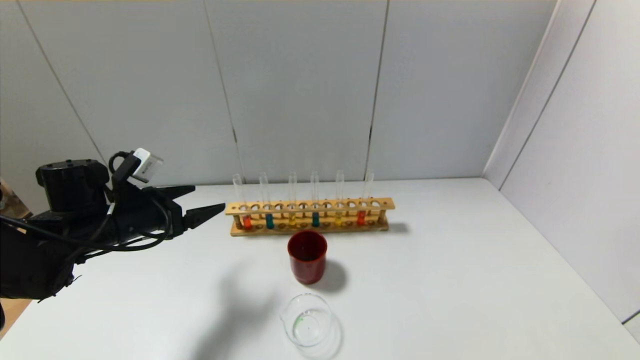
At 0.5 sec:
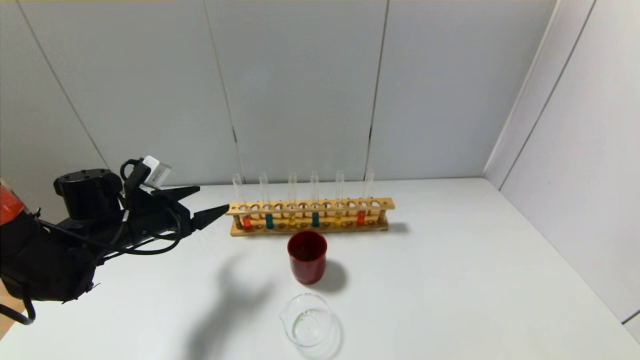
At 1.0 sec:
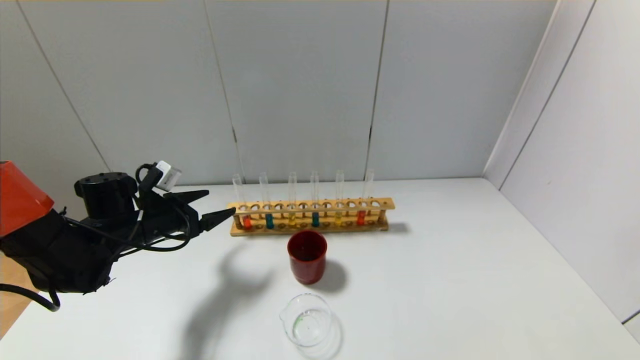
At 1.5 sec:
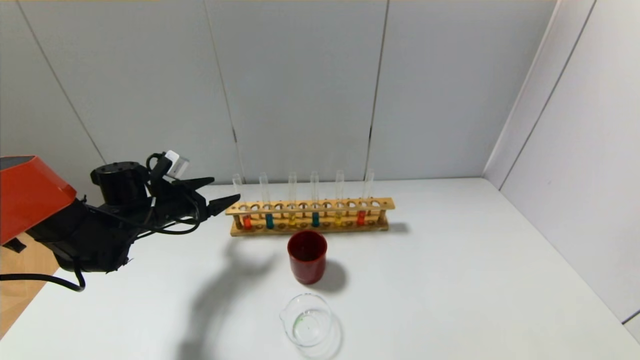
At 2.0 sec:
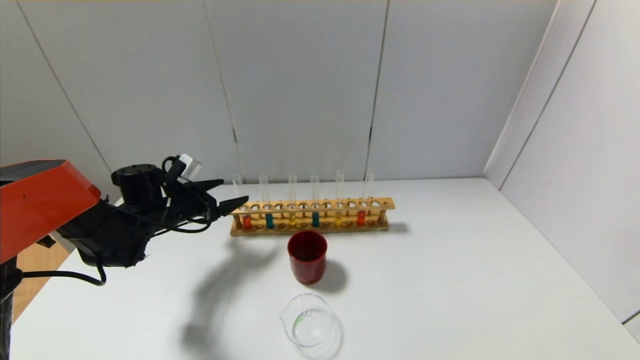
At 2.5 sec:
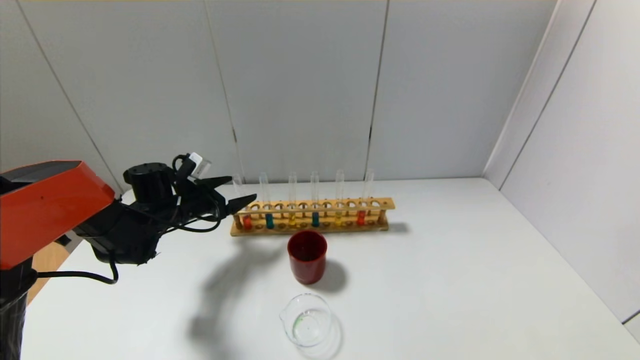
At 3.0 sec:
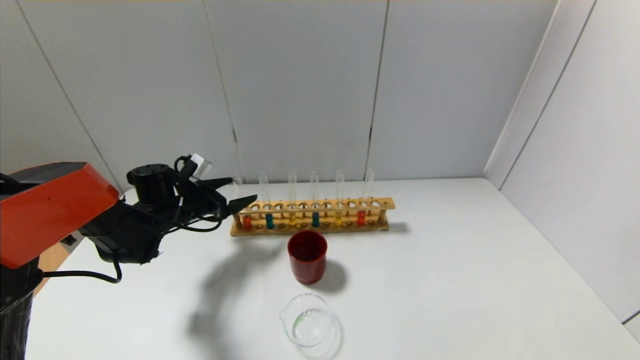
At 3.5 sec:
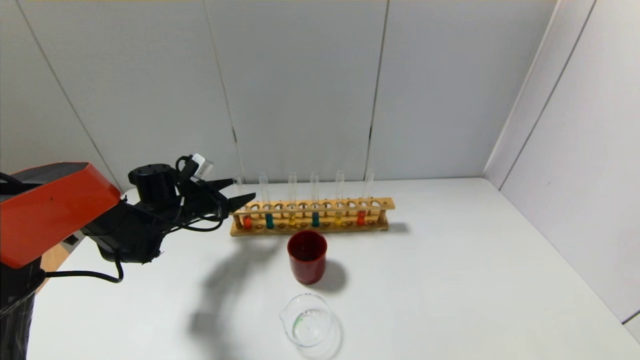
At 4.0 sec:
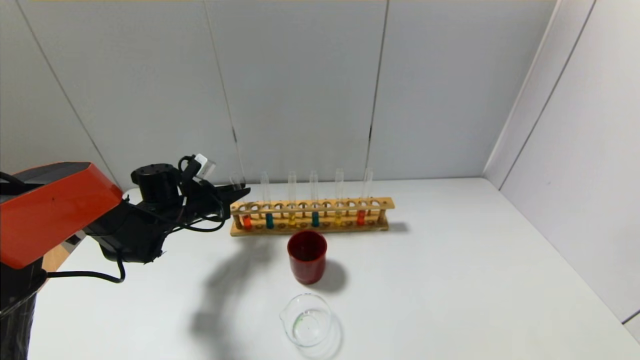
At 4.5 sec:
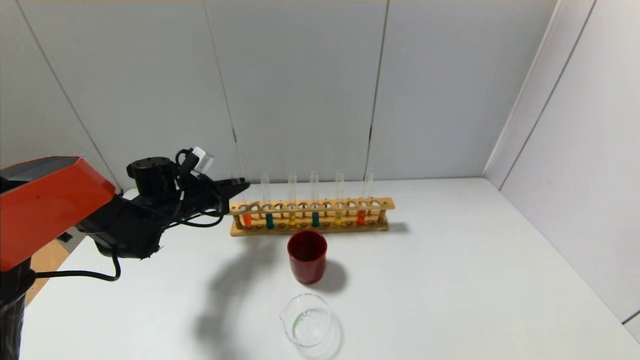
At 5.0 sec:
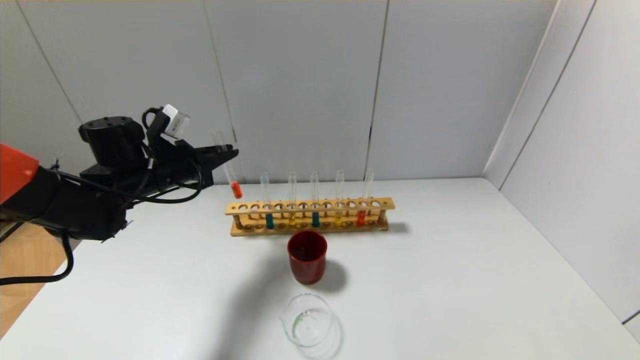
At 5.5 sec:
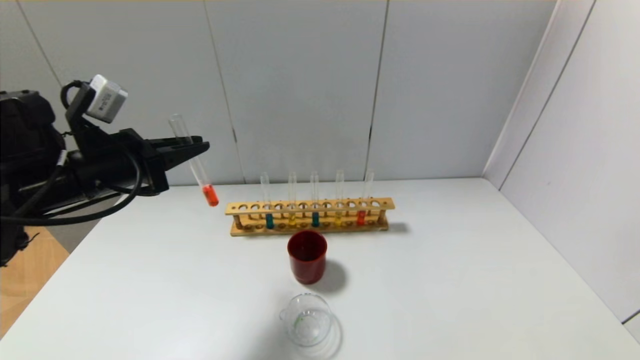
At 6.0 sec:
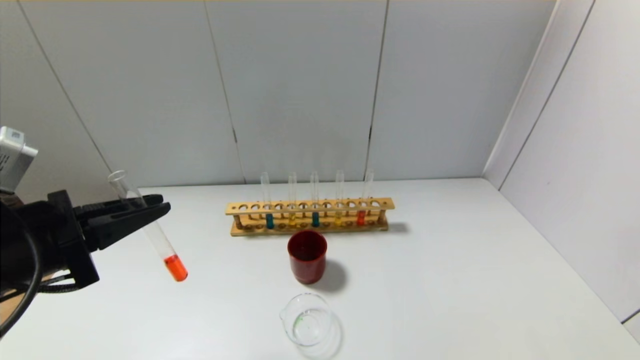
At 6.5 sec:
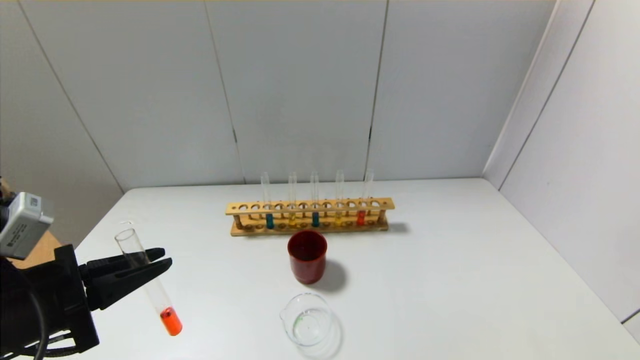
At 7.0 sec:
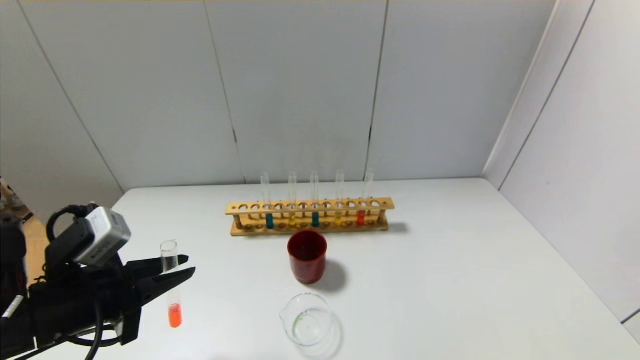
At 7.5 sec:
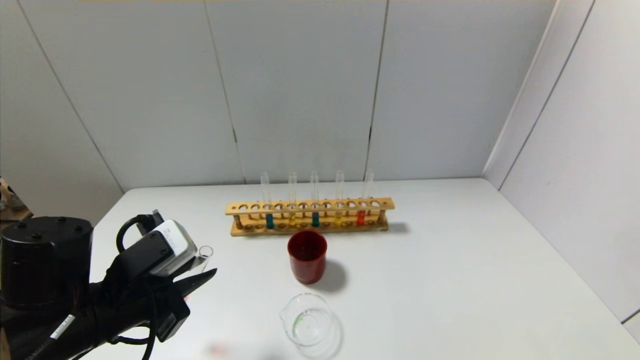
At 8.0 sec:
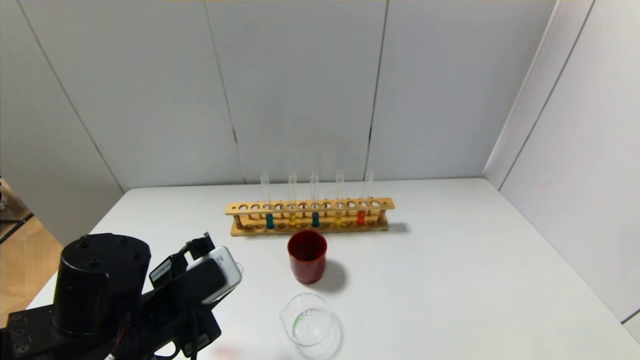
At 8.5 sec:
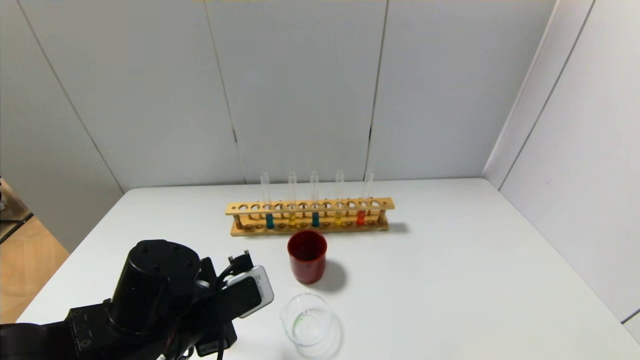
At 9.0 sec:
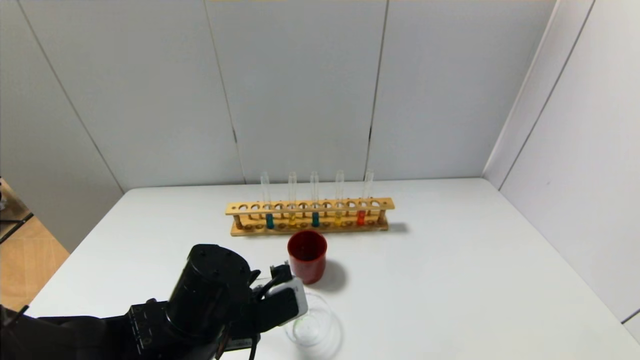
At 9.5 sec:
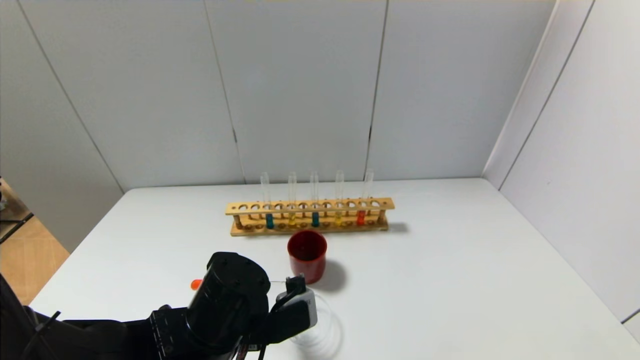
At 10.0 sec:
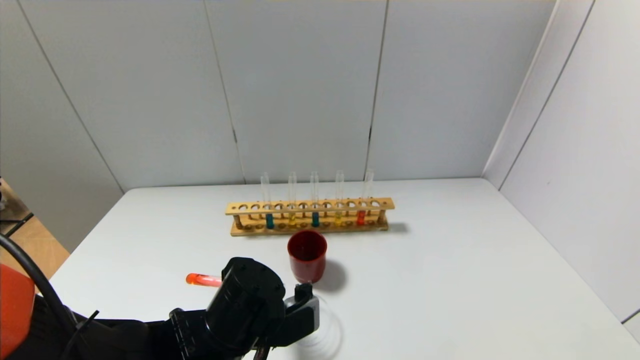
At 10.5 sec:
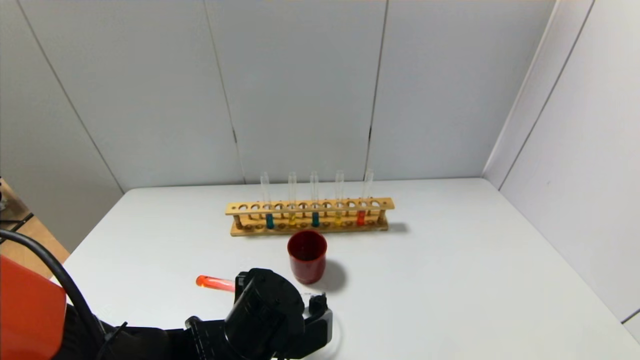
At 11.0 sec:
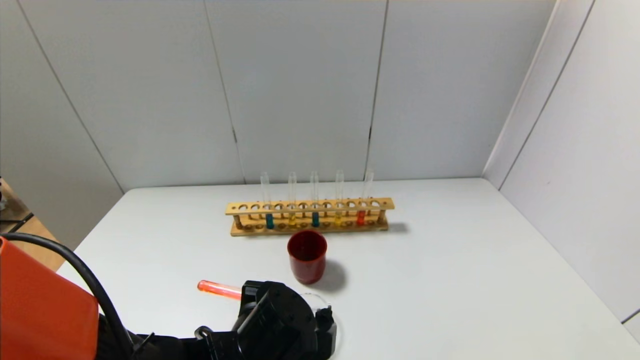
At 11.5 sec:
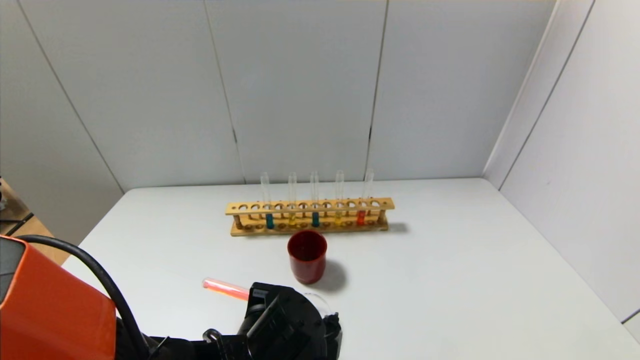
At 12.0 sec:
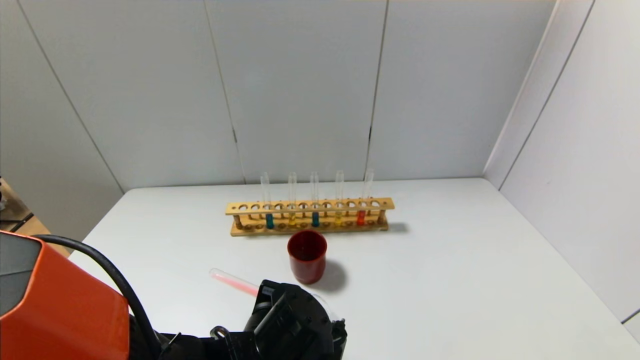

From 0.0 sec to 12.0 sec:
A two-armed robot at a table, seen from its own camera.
Step, from 0.0 sec to 4.0 sec: Grasp the red reagent with the left gripper.
From 0.0 sec to 2.0 sec: The left gripper moves forward and downward, approximately 10 cm.
From 2.0 sec to 4.0 sec: The left gripper closes up.
From 4.0 sec to 6.0 sec: The left gripper moves backward and upward, some 30 cm.
From 6.0 sec to 8.0 sec: The left gripper moves to the right and downward, approximately 15 cm.
From 8.0 sec to 10.0 sec: The left gripper travels to the right by roughly 10 cm.
From 10.0 sec to 12.0 sec: There are only small adjustments of the grippers.

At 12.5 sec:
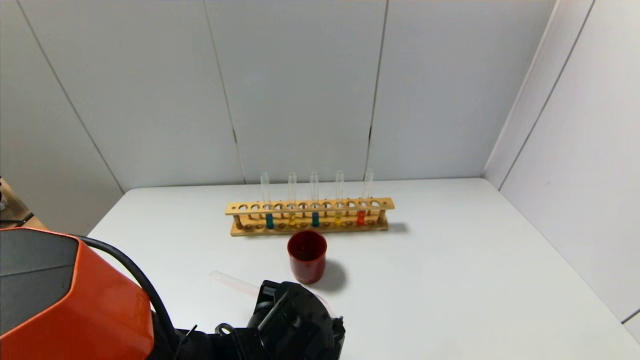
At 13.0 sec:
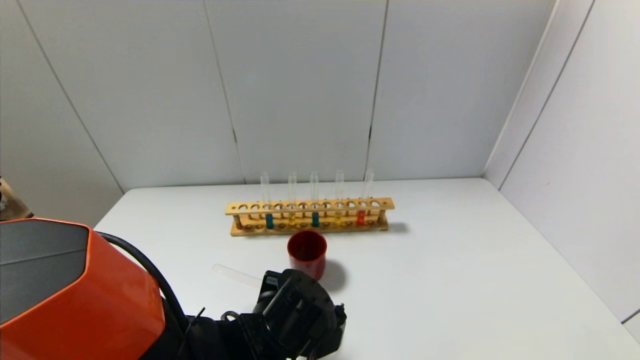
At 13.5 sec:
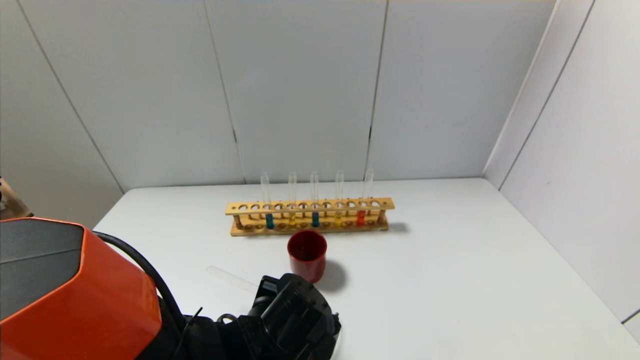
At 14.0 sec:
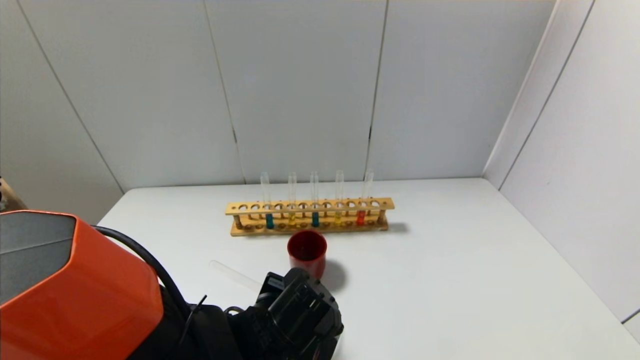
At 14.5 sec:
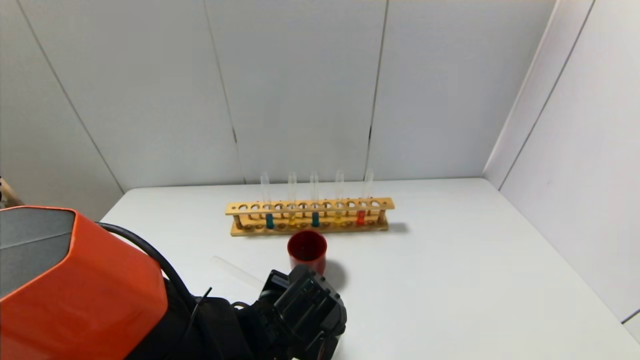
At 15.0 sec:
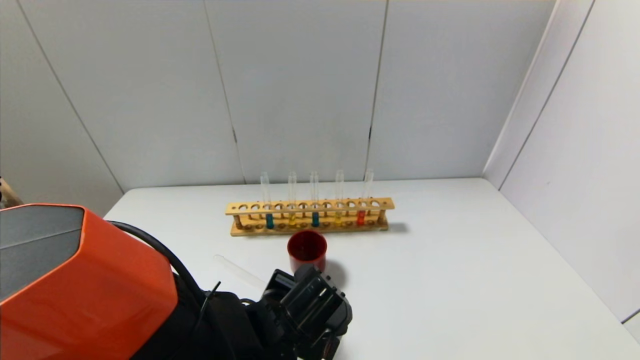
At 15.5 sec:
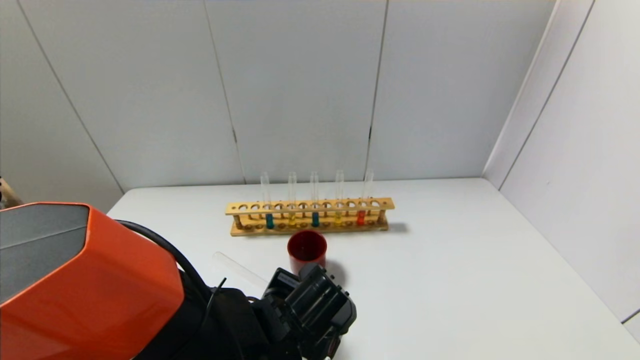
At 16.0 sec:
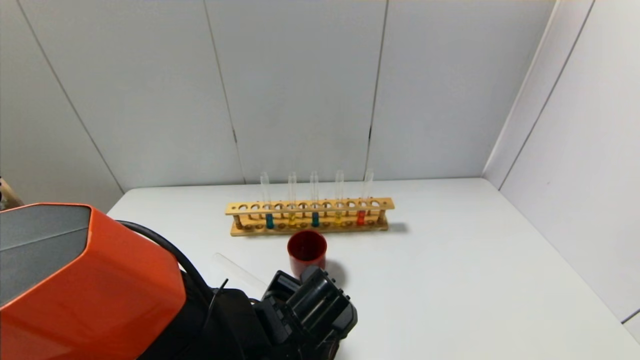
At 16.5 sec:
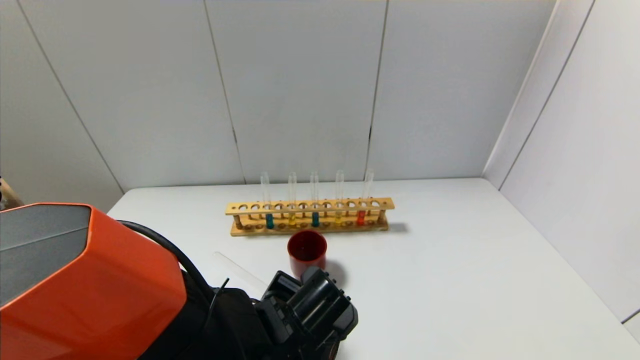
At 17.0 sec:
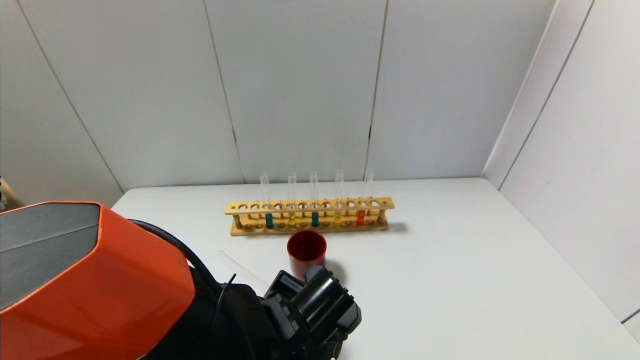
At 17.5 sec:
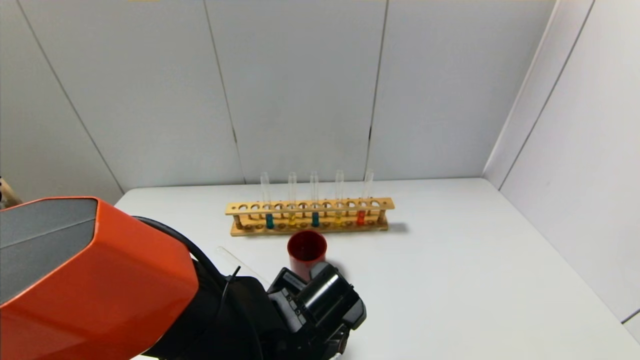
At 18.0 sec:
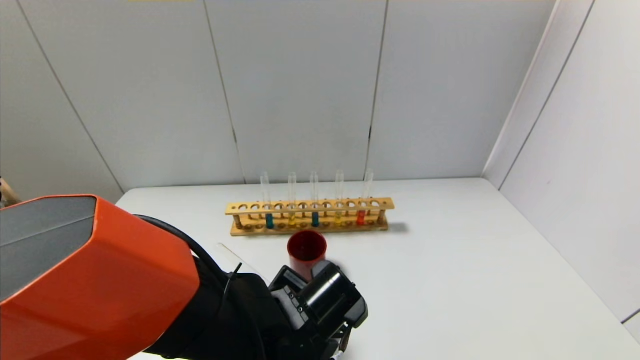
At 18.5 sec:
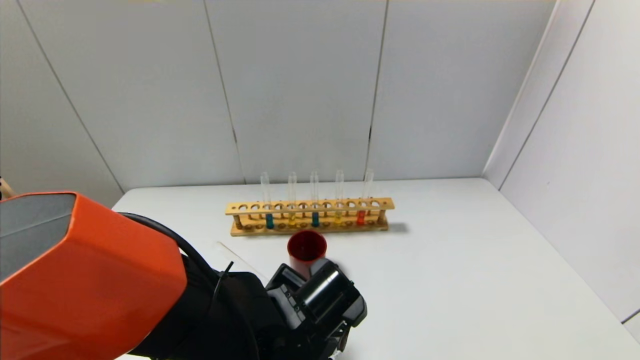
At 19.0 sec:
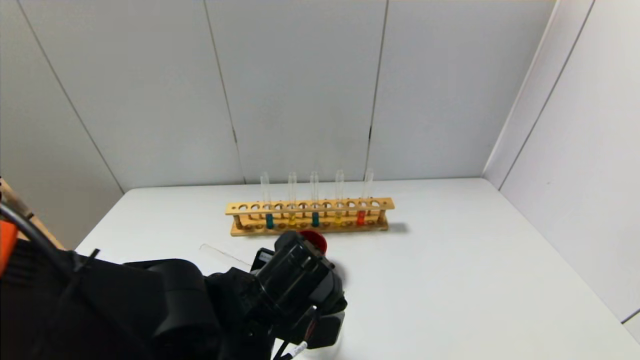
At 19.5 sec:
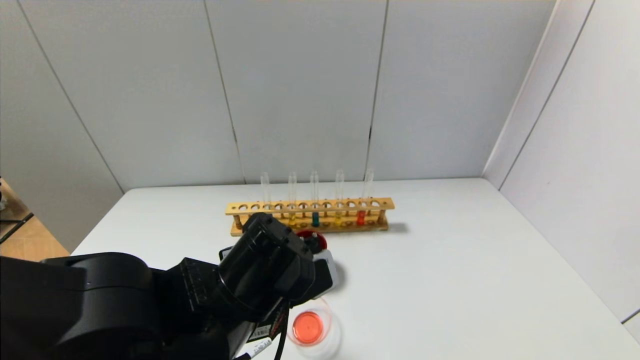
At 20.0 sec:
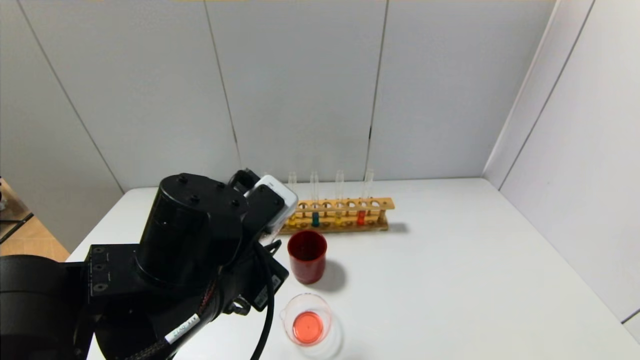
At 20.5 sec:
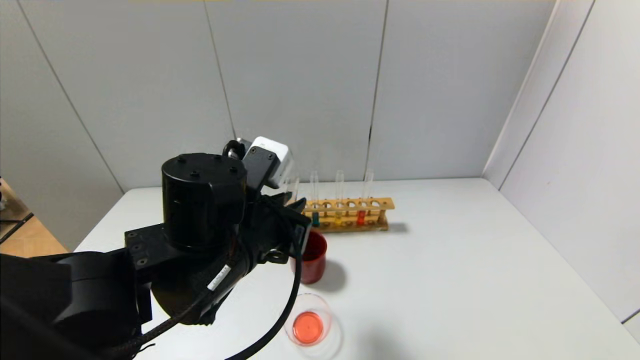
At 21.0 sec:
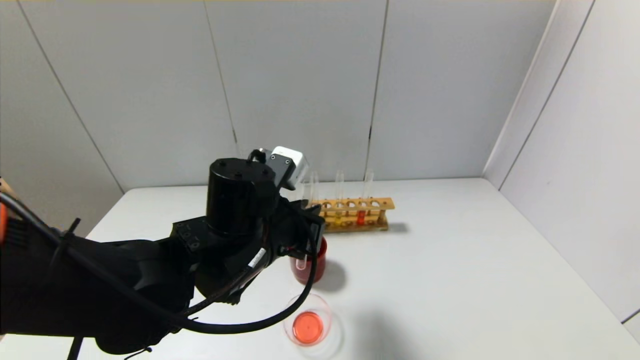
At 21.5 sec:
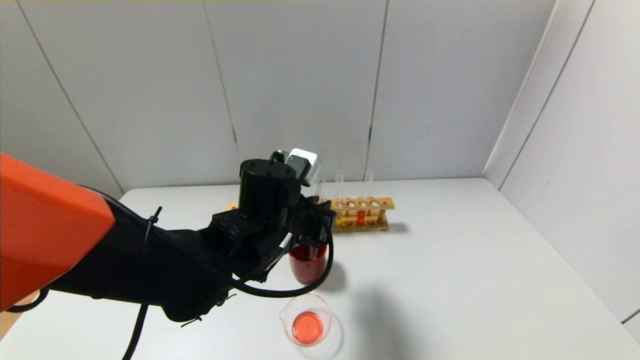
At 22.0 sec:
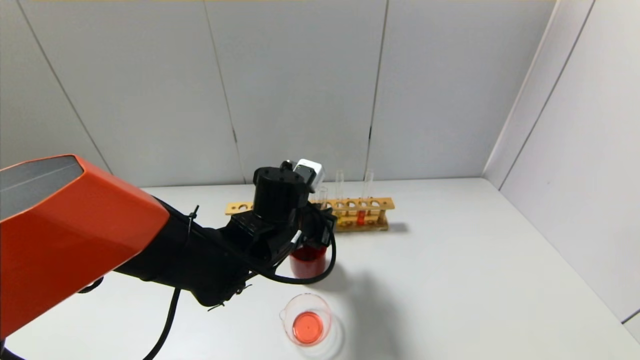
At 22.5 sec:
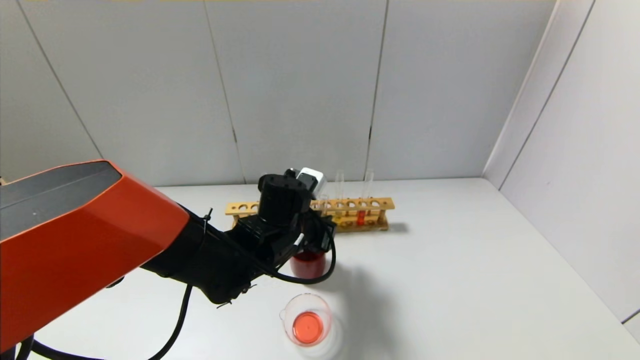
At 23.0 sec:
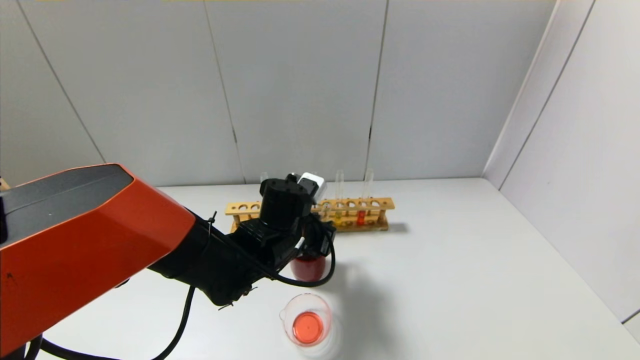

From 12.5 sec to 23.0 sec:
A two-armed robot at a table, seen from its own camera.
Step, from 12.5 sec to 18.5 sec: Pour the red reagent into the graduated cylinder with the left gripper.
From 12.5 sec to 14.5 sec: The grippers make only small movements.
From 14.5 sec to 16.5 sec: The grippers stay close to where they were, moving slightly.
From 16.5 sec to 19.0 sec: The left gripper moves upward, about 5 cm.
From 19.0 sec to 21.0 sec: The left gripper travels forward by roughly 5 cm.
From 21.0 sec to 23.0 sec: The left gripper travels forward and downward by some 10 cm.
